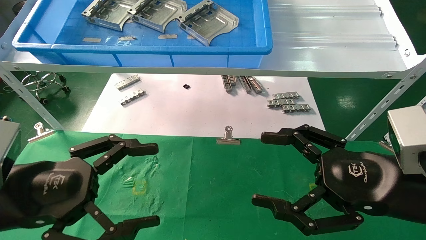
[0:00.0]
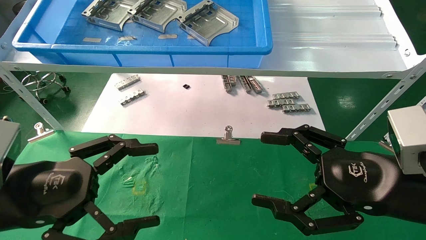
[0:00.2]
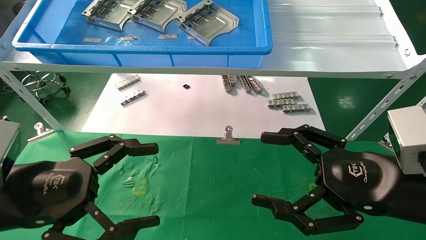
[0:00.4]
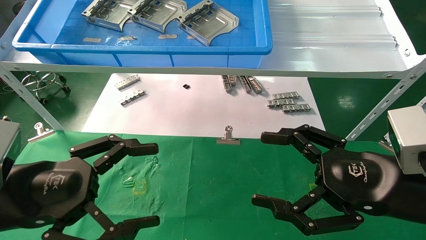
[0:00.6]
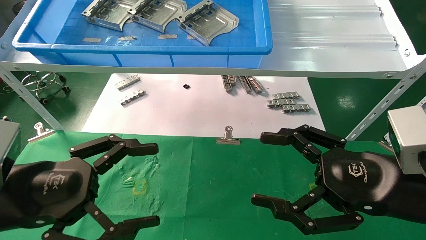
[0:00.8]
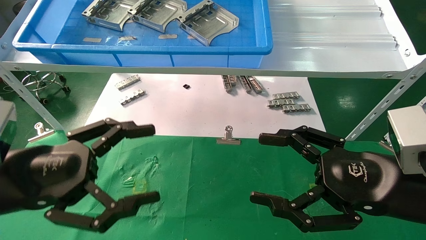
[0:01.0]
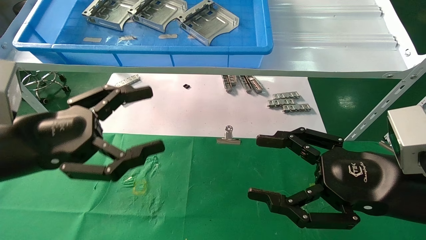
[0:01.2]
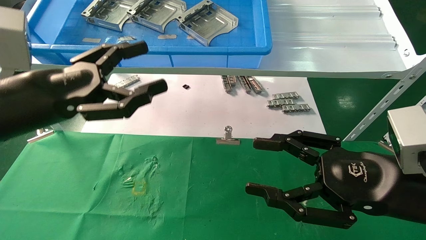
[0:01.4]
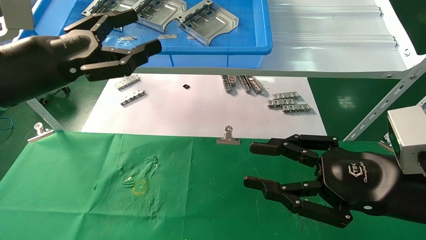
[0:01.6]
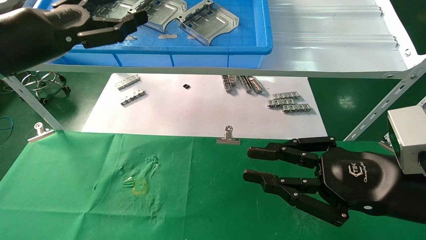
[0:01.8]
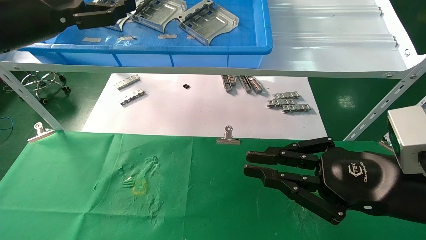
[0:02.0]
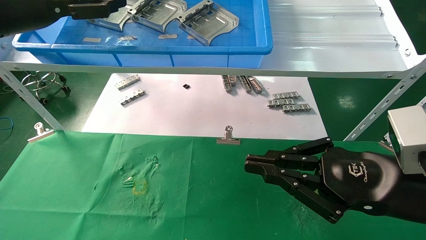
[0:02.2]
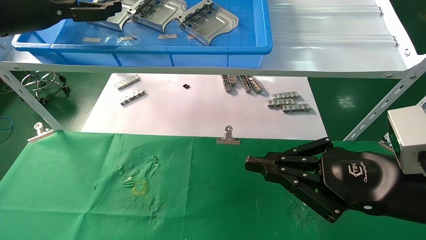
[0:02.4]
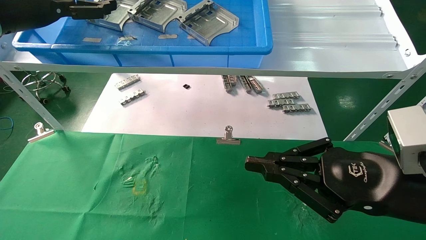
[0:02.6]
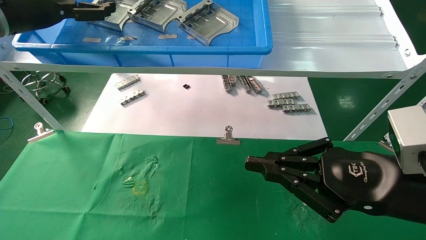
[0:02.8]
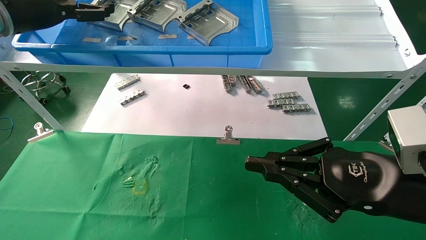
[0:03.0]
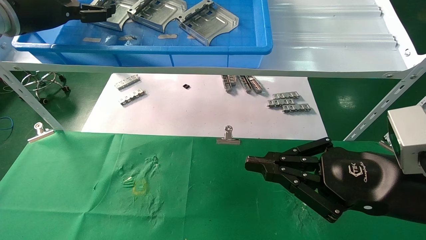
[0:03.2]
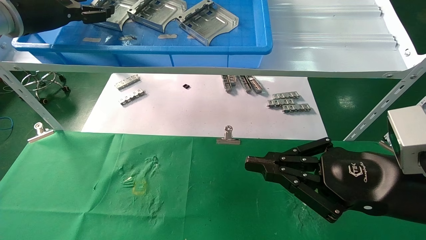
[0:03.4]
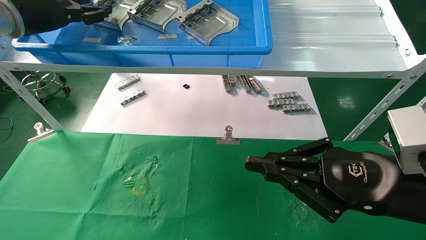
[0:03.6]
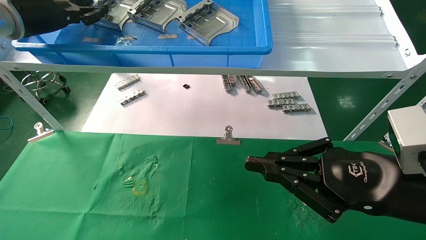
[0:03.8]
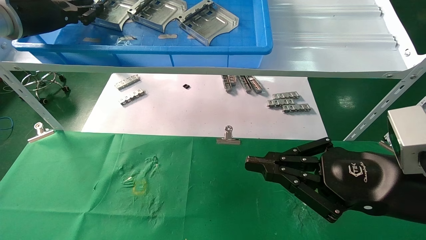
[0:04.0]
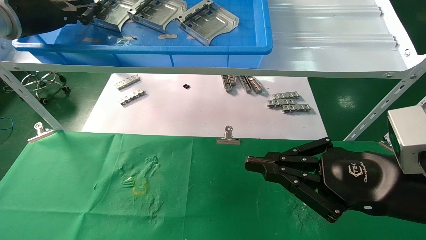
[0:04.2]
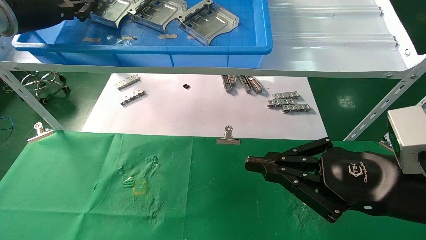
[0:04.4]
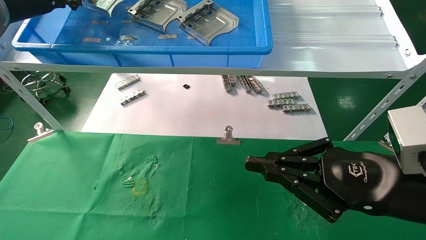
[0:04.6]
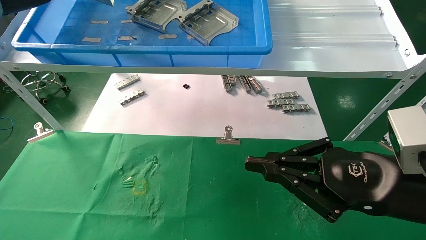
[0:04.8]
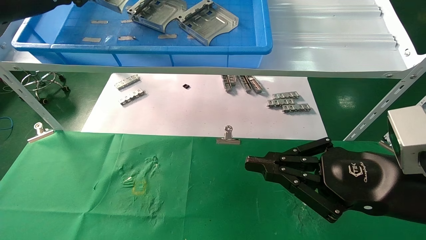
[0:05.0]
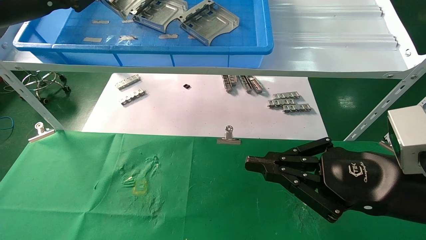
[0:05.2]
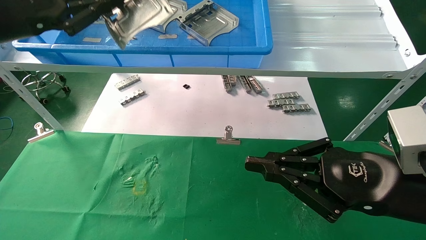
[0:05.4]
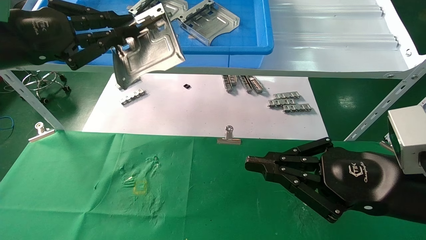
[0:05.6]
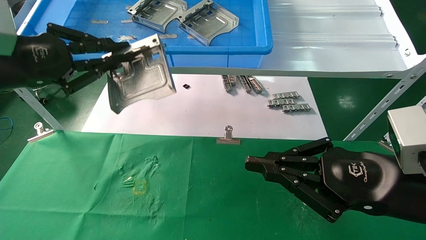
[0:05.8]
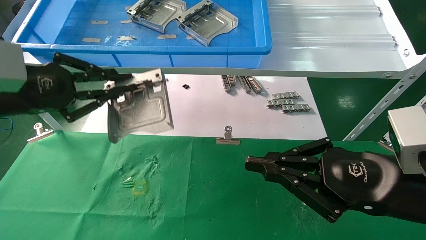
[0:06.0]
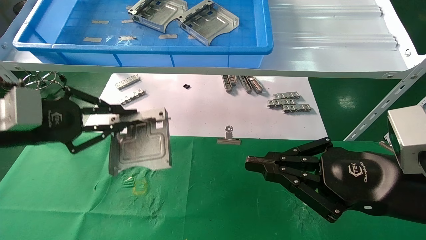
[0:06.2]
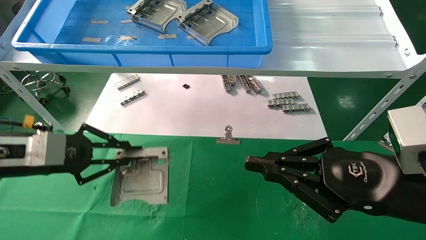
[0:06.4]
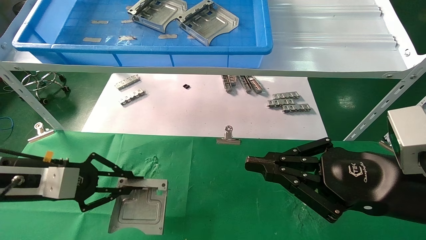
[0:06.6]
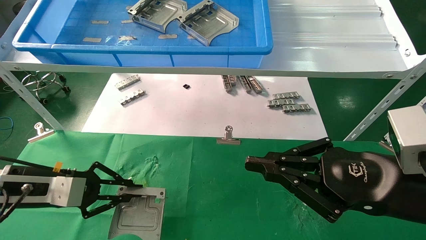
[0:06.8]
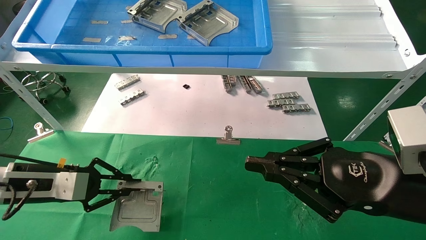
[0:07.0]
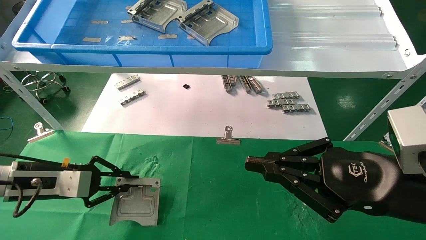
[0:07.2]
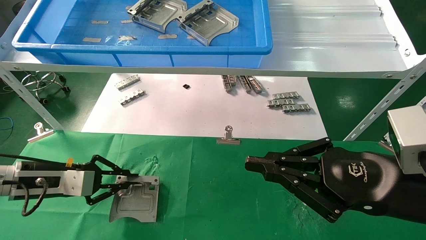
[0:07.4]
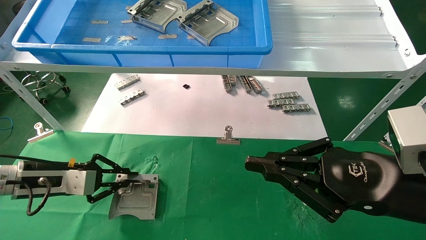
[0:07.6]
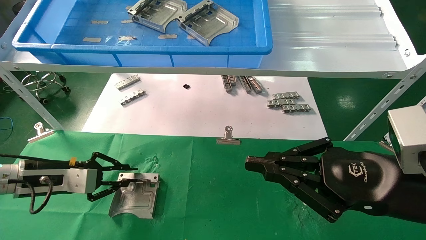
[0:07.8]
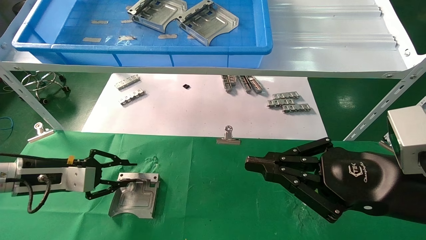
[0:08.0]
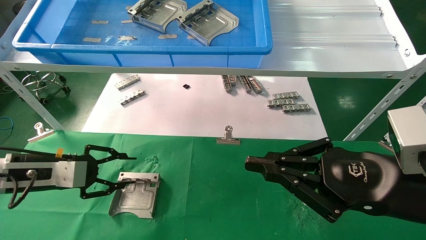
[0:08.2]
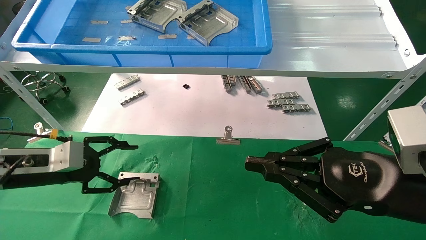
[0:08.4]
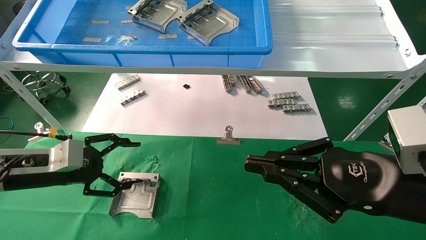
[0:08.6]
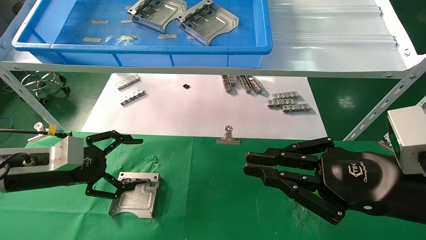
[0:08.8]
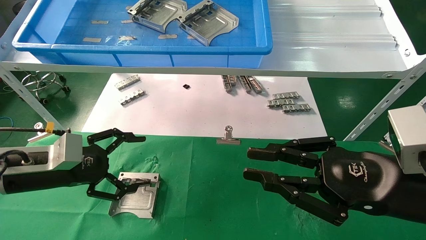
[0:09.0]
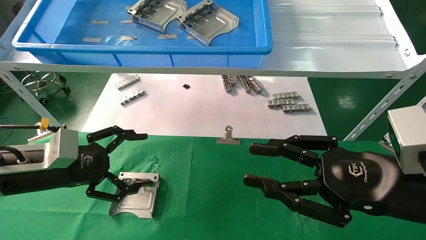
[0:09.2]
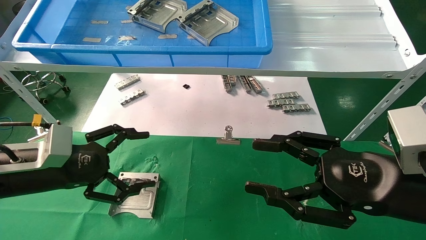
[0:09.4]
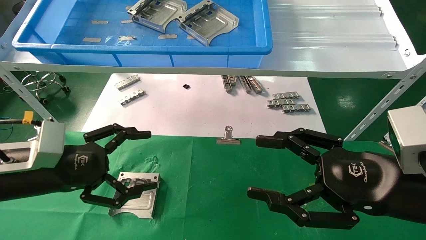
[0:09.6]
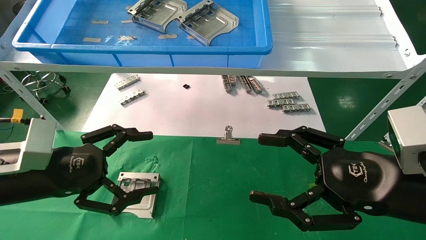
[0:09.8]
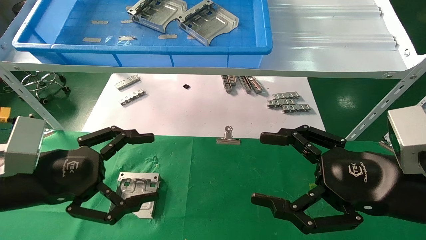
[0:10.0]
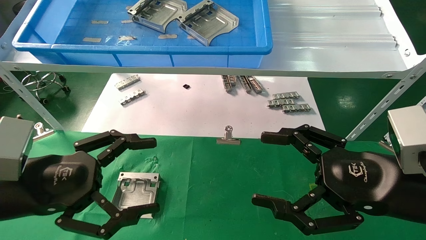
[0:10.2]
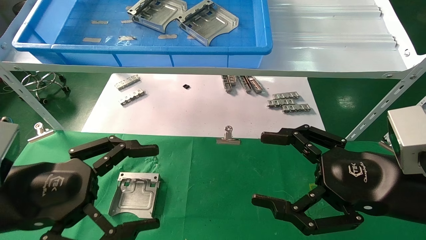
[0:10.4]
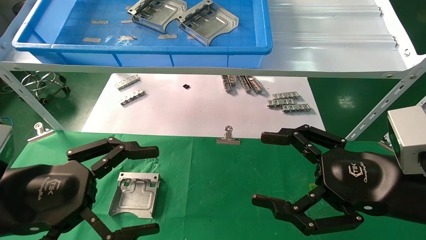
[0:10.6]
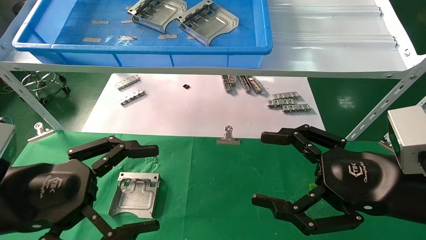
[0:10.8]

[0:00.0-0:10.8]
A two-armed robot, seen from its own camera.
Task of the whole recording: use the mechanical arm to pick up the parts and place them on the table.
Step, 0:01.2 to 0:04.2: Pick up the hard drive bracket from the feeding area.
Step, 0:04.4 to 0:07.8: Place the hard drive bracket into the box.
0:00.0 to 0:01.6: The left gripper shifts about 15 cm upward and forward, while the right gripper closes its fingers.
0:01.6 to 0:03.0: The left gripper heads forward, upward and to the left, covering approximately 15 cm, while the right gripper closes up.
0:03.0 to 0:04.6: The left gripper closes its fingers.
0:04.6 to 0:06.2: The left gripper is displaced downward and backward by roughly 20 cm.
0:06.2 to 0:07.8: The left gripper travels downward and forward by some 15 cm.
0:07.8 to 0:09.2: The left gripper heads backward, covering about 5 cm, and opens.
0:09.2 to 0:10.8: The left gripper goes about 10 cm backward. The right gripper opens.

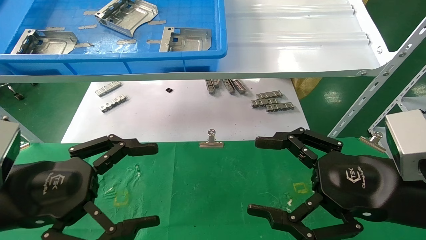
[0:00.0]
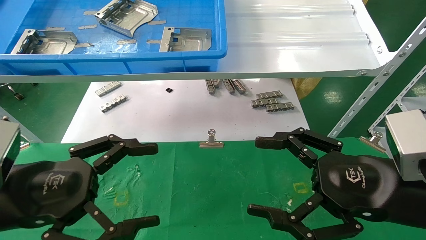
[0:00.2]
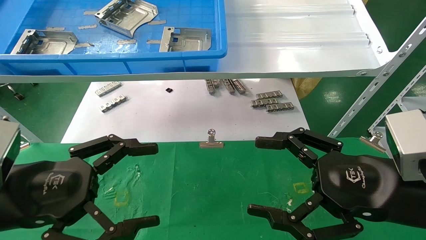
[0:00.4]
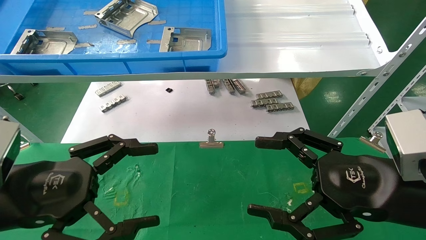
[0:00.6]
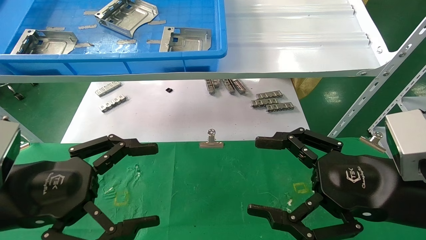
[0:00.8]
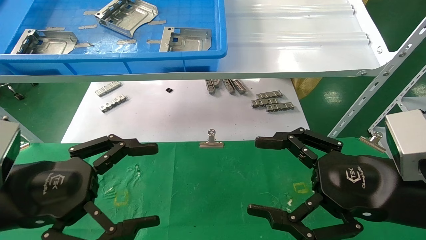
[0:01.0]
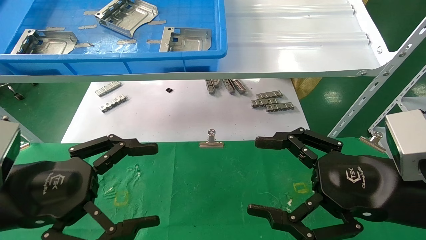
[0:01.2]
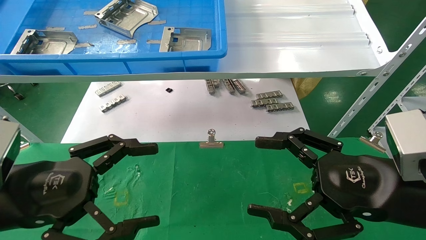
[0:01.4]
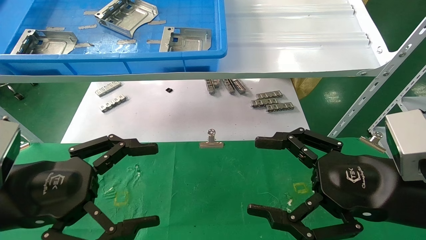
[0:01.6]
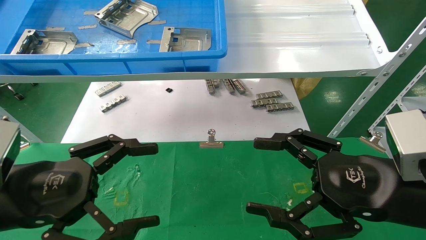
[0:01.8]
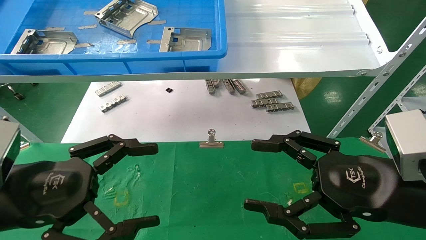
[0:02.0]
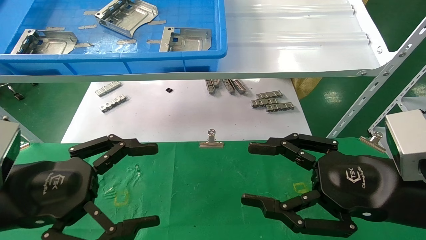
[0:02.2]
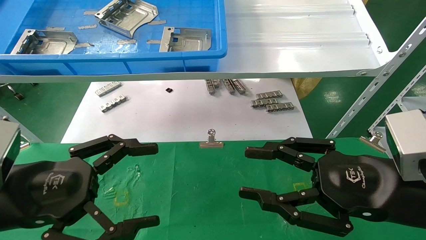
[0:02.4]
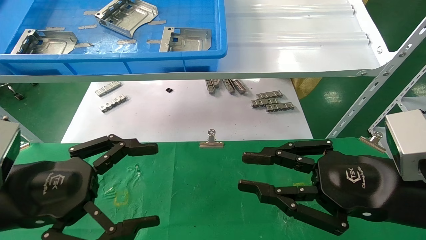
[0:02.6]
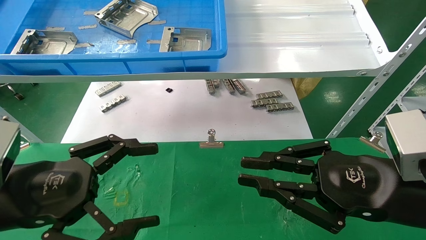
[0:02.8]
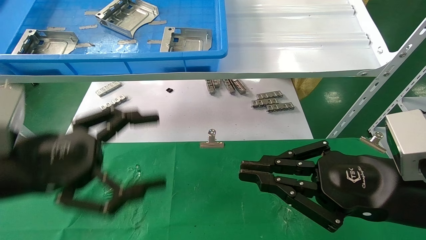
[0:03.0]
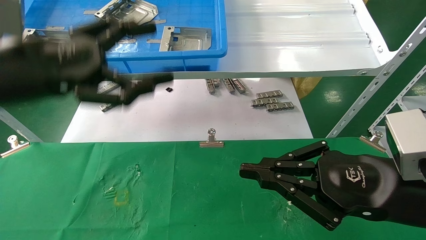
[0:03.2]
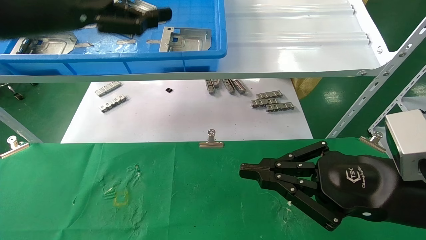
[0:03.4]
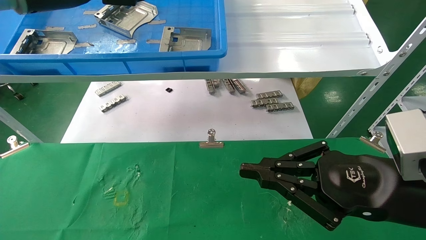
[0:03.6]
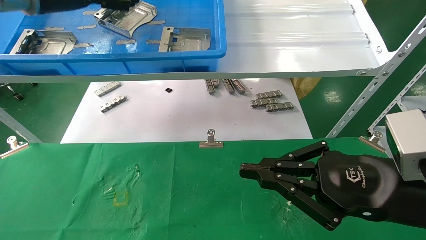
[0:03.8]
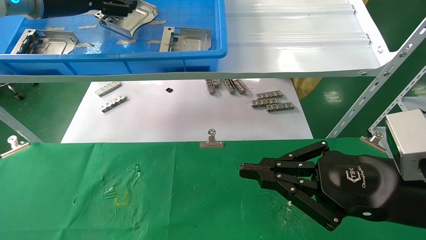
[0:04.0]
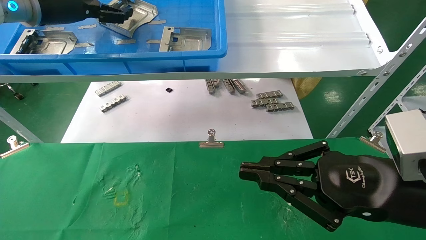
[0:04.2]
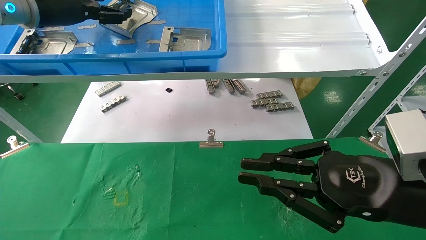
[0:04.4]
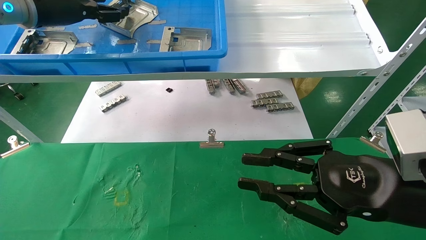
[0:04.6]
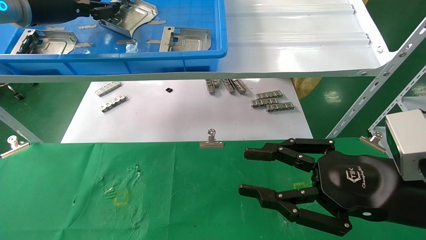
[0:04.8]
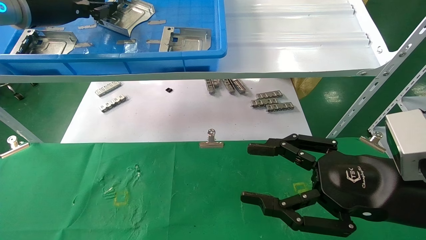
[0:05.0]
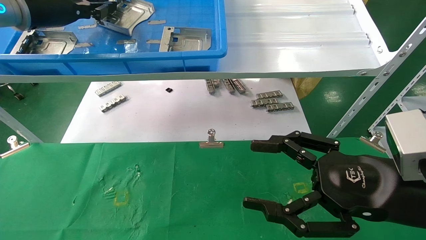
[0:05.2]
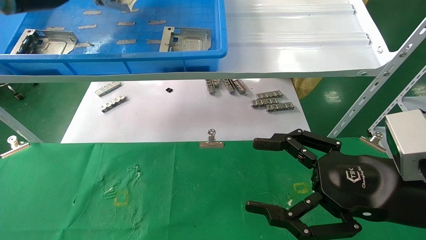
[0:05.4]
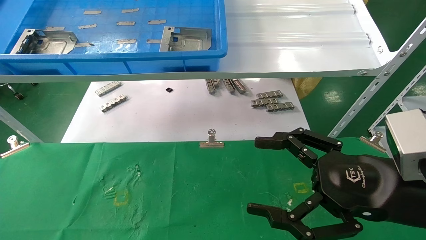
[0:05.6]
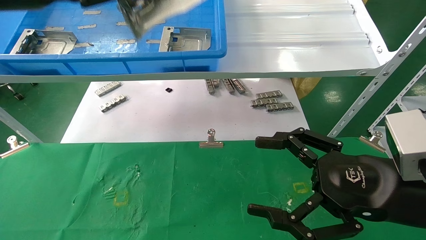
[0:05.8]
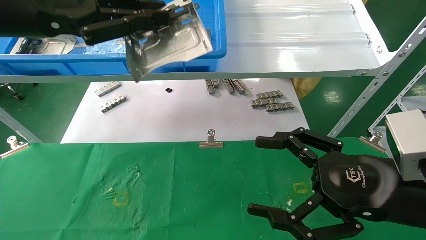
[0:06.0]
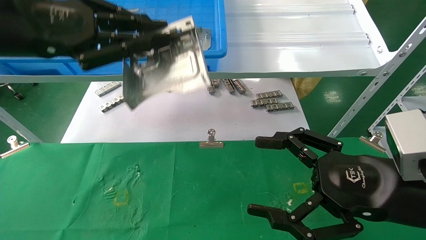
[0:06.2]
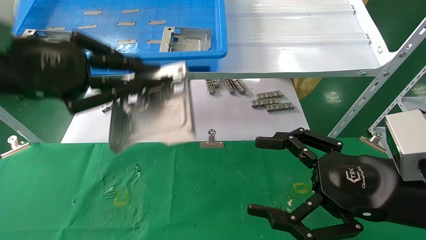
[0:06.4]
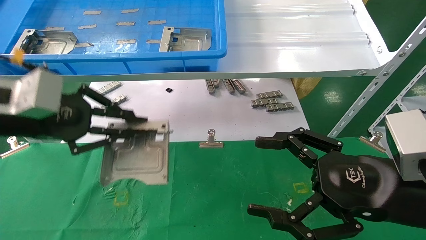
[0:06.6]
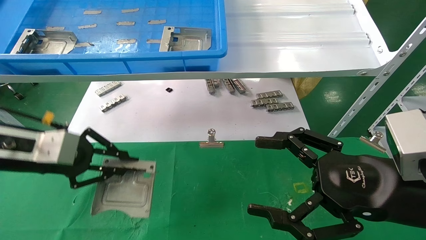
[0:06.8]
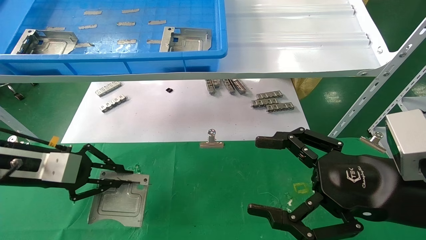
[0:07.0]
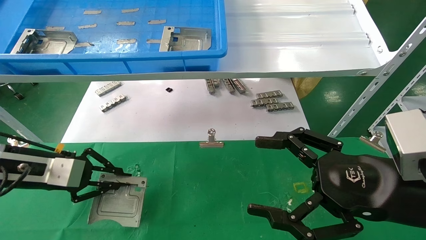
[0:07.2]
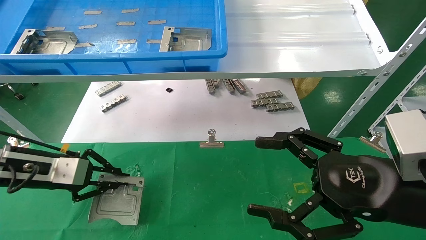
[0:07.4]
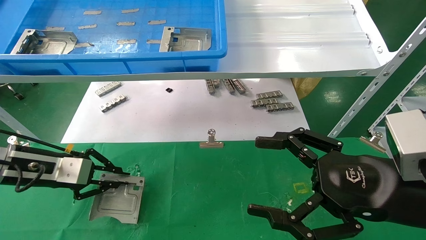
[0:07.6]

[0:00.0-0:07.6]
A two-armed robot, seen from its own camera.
Task of the whole recording: use the mechanical arm to pick up the parts and place them on the table.
Step, 0:03.2 to 0:05.2: Pick up the hard drive bracket from the feeding area.
0:00.0 to 0:01.6: Both grippers stay about where they are.
0:01.6 to 0:03.0: The left gripper goes roughly 5 cm upward. Meanwhile the right gripper closes up.
0:03.0 to 0:04.6: The left gripper shifts about 25 cm forward and upward.
0:04.6 to 0:06.0: The left gripper goes some 15 cm backward, and closes up. The right gripper opens.
0:06.0 to 0:07.6: The left gripper is displaced downward by roughly 25 cm.
